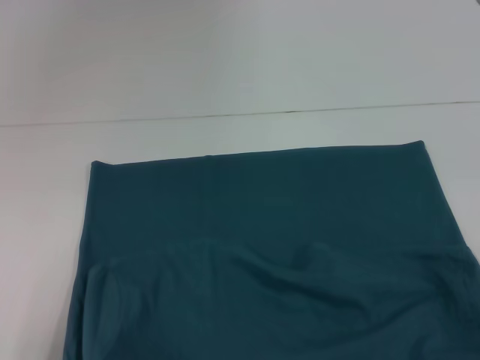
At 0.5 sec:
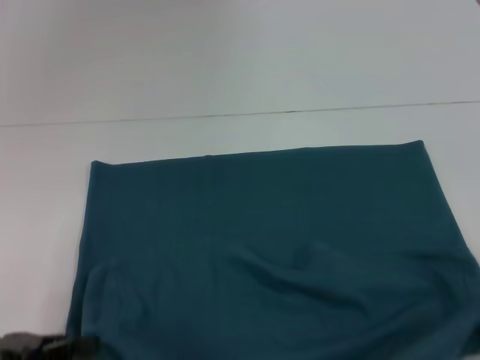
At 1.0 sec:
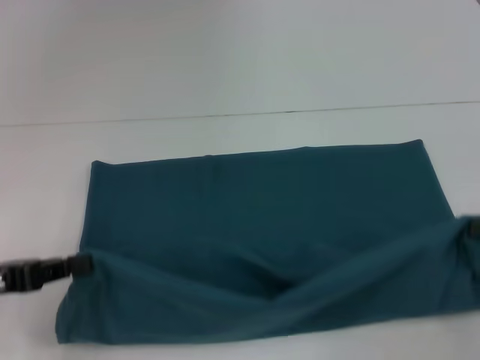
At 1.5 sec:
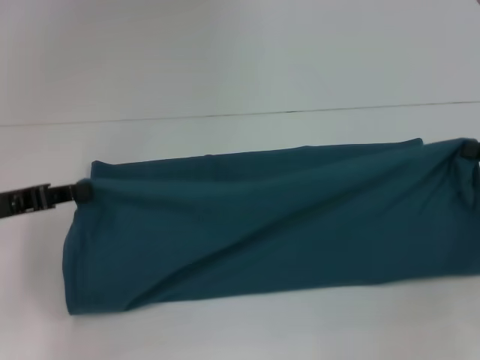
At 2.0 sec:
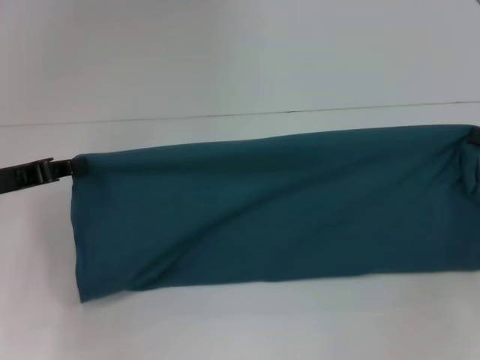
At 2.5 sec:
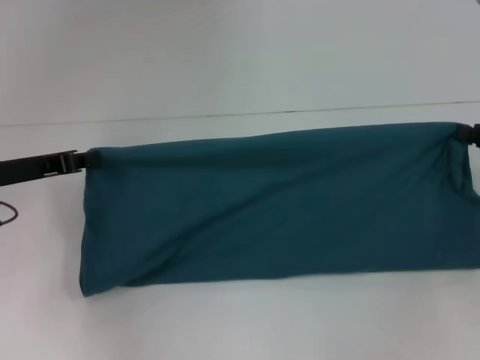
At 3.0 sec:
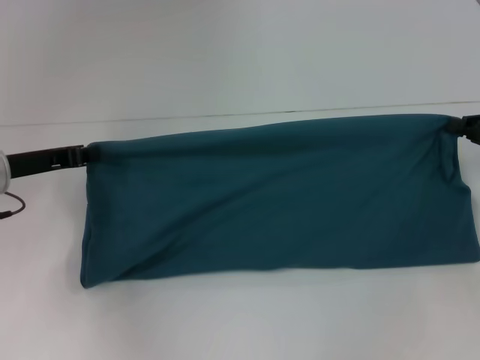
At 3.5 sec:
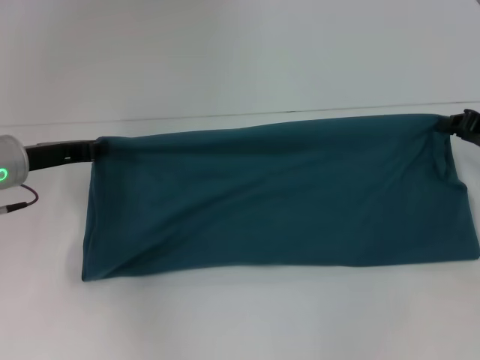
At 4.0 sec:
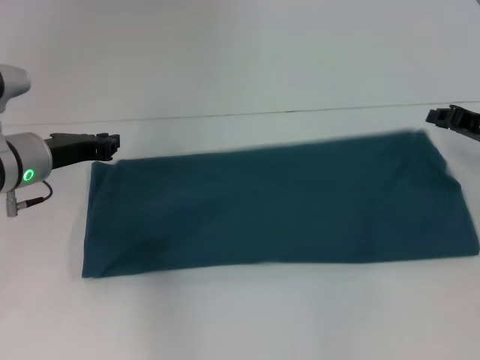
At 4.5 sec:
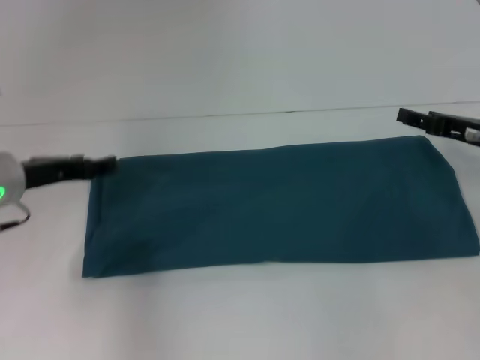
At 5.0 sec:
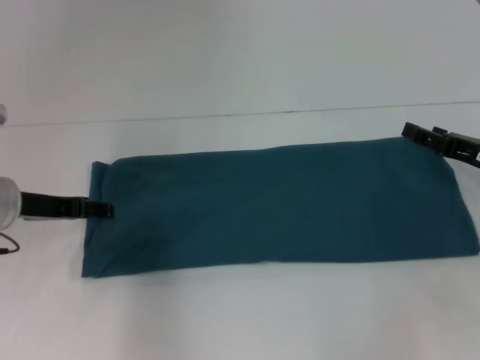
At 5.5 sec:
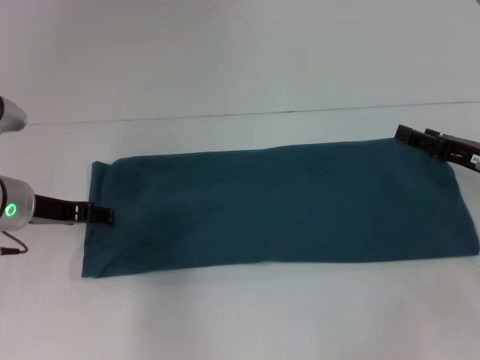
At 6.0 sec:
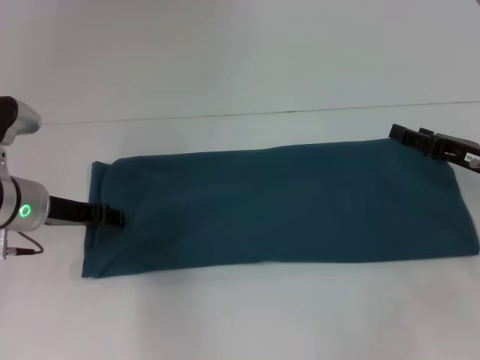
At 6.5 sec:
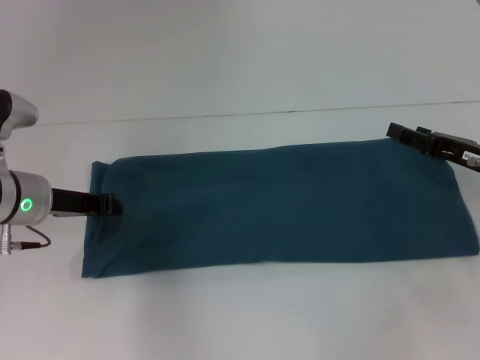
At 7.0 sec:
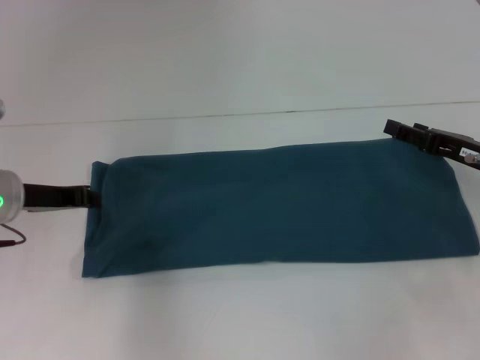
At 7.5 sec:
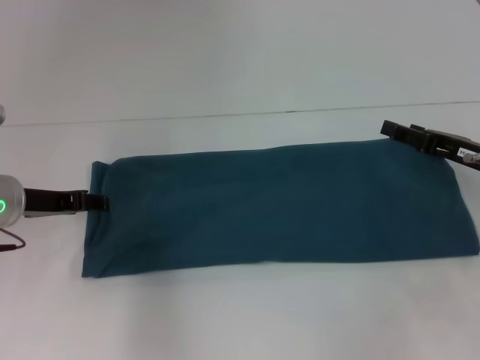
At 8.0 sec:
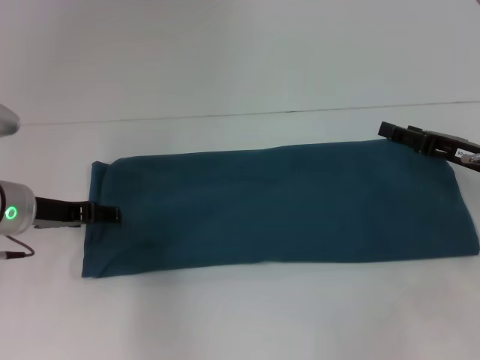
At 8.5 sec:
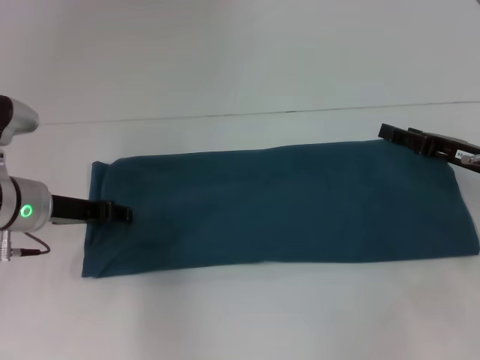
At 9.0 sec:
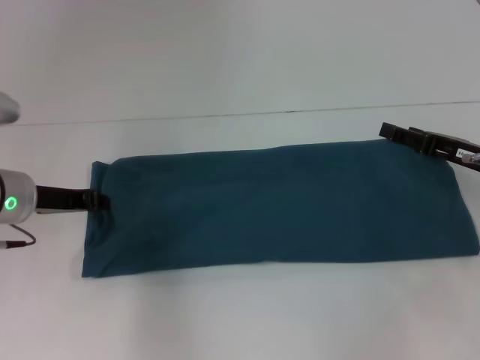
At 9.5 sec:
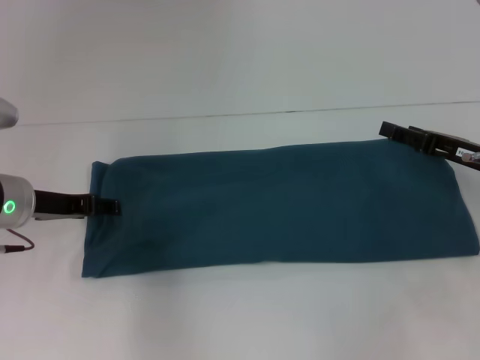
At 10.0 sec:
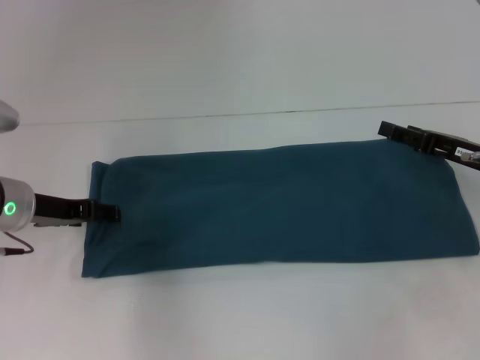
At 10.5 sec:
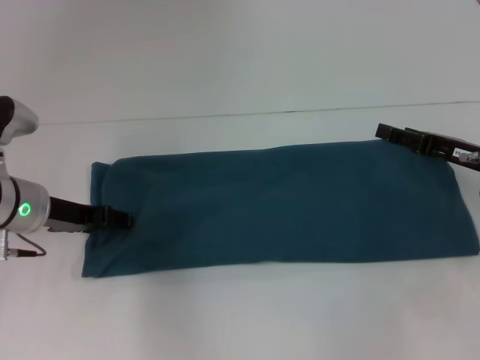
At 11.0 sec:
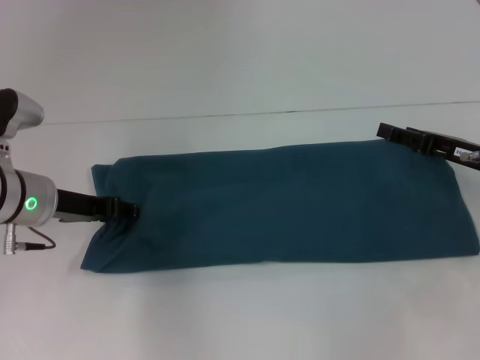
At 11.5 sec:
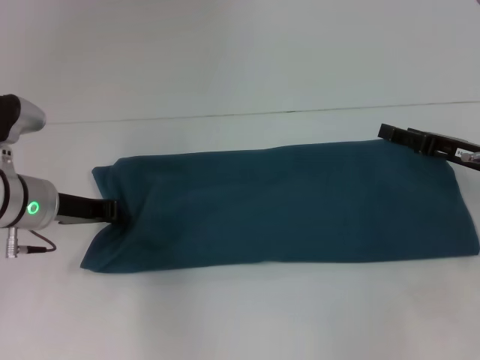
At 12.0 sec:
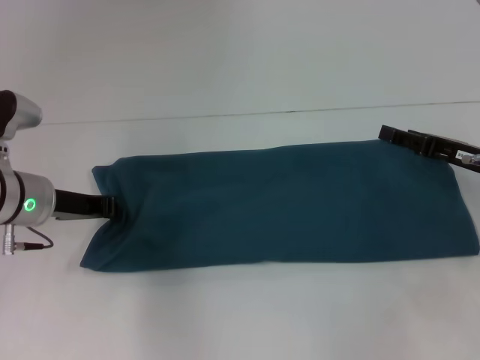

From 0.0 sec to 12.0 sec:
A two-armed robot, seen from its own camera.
Step, from 0.0 sec to 4.0 sec: Fold the clothes to the left.
Step, from 0.0 sec to 4.0 sec: Fold the clothes to the right.
From 0.0 sec to 2.0 sec: Both grippers move forward, approximately 20 cm.
From 2.0 sec to 4.0 sec: The left gripper is displaced to the right and forward by approximately 10 cm. The right gripper moves forward and to the left, roughly 10 cm.
From 4.0 sec to 6.0 sec: The right gripper changes place by approximately 5 cm, and opens its fingers; the left gripper opens its fingers.
From 6.0 sec to 8.0 sec: The left gripper closes, then opens again.
From 8.0 sec to 10.0 sec: The left gripper closes and opens again.
From 10.0 sec to 12.0 sec: The left gripper closes.

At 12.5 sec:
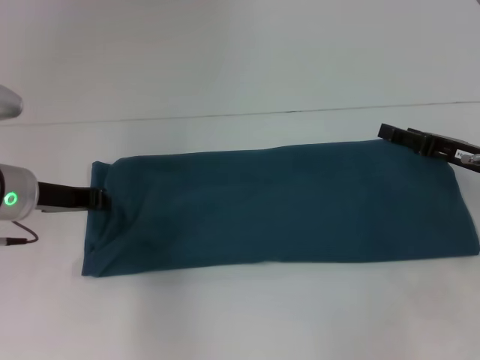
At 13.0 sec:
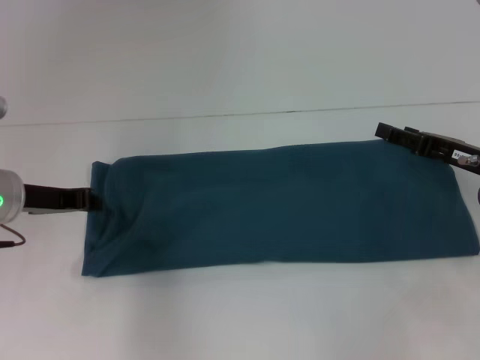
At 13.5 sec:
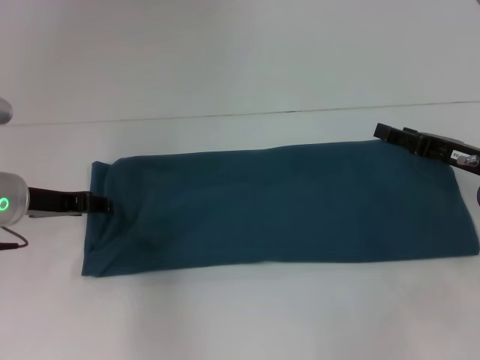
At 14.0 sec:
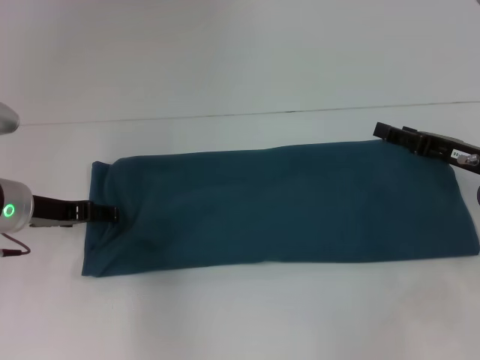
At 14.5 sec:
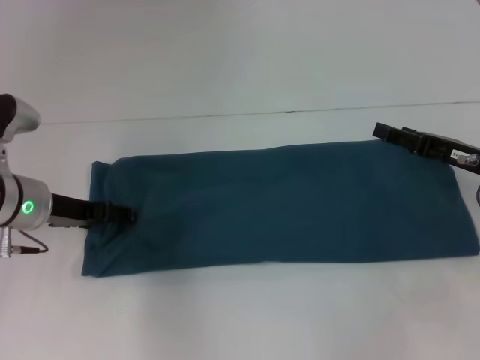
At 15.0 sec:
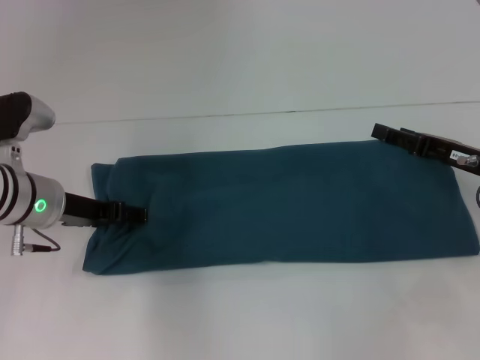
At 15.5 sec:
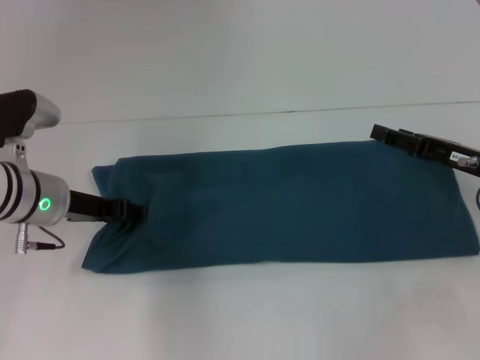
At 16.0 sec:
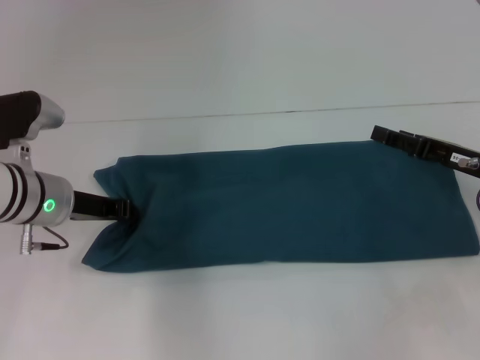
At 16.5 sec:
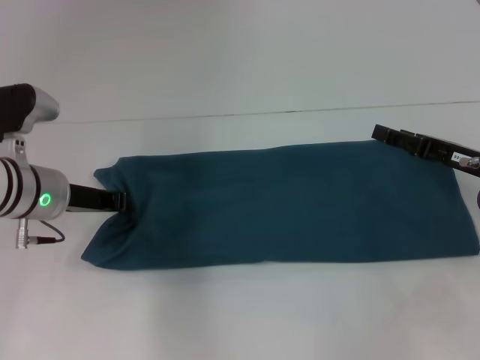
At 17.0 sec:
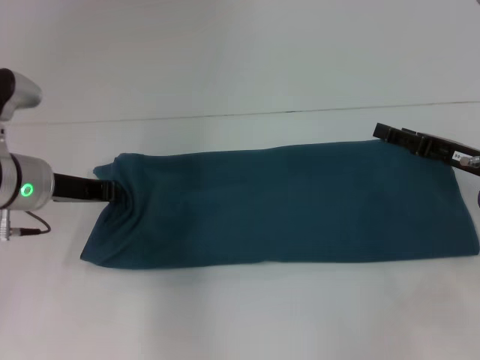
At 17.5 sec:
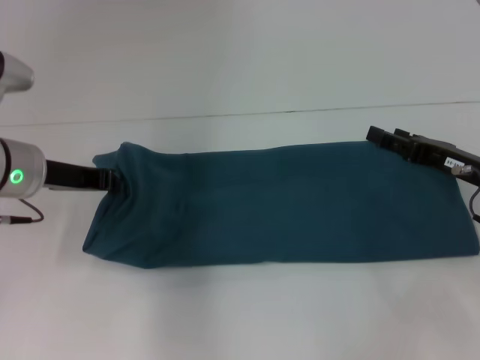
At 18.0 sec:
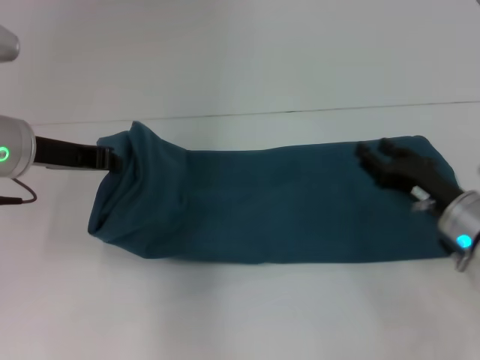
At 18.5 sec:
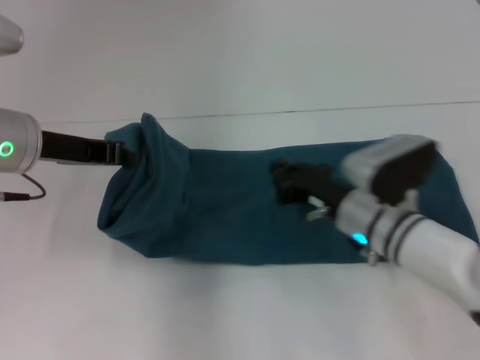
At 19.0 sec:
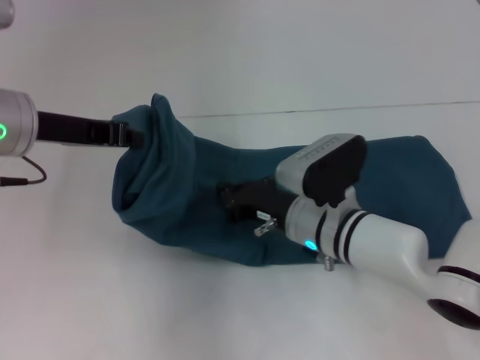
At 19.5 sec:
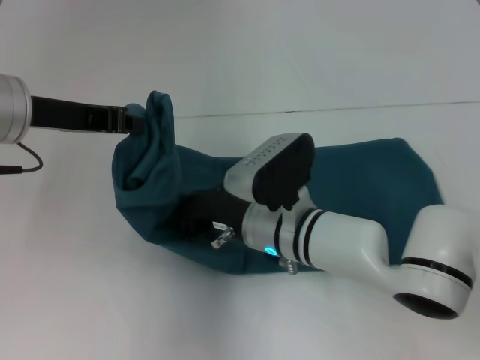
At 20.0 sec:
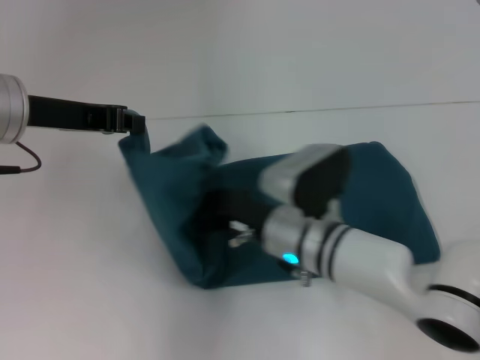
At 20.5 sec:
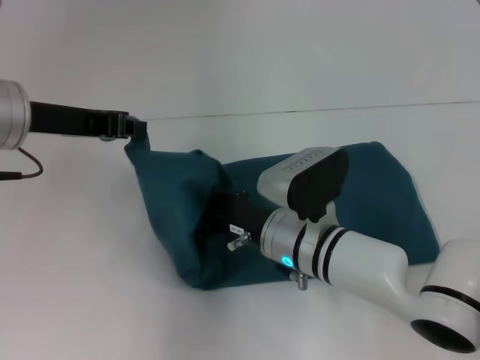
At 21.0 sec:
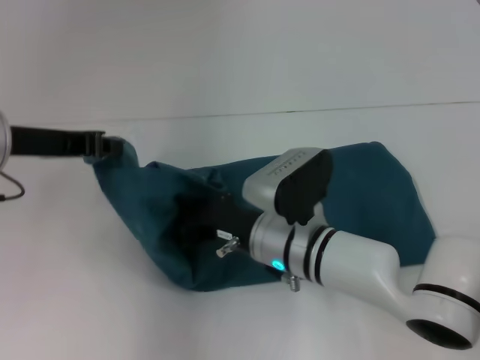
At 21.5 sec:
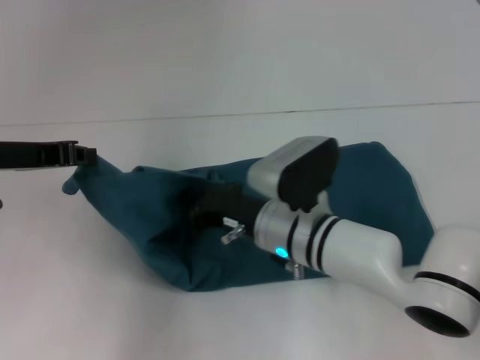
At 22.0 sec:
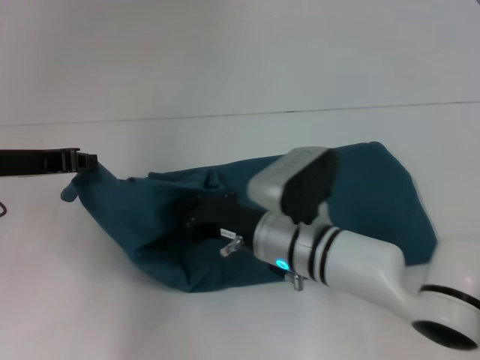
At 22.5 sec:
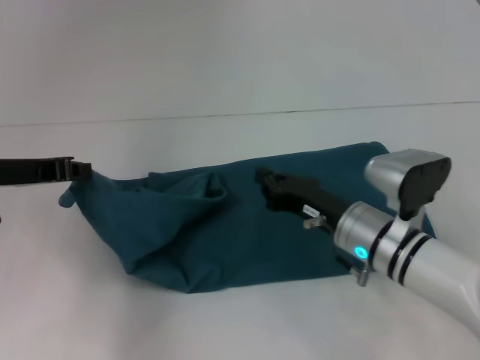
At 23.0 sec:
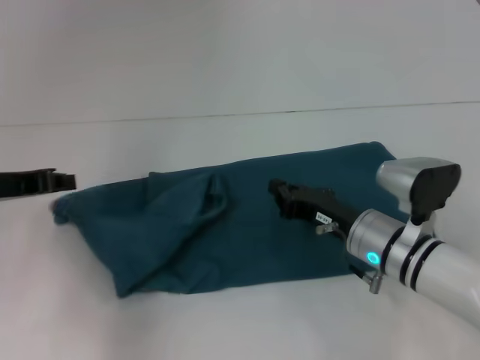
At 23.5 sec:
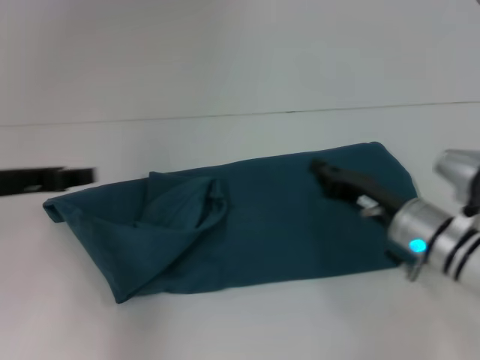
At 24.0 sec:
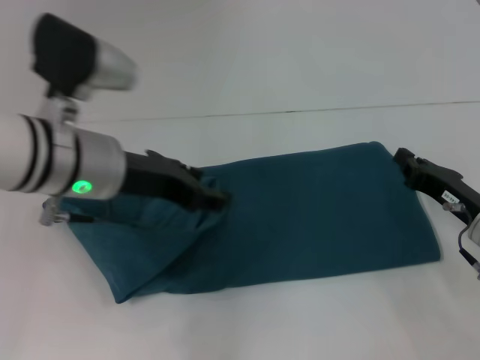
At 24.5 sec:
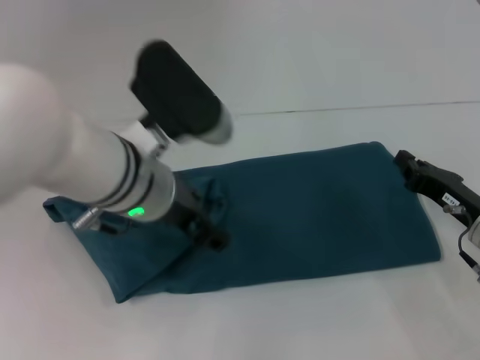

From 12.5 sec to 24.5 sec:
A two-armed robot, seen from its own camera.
From 12.5 sec to 14.5 sec: The left gripper opens.
From 14.5 sec to 16.5 sec: The left gripper closes up.
From 16.5 sec to 18.5 sec: The right gripper heads to the left, covering some 15 cm, and closes; the left gripper is displaced upward by about 10 cm.
From 18.5 sec to 20.5 sec: The right gripper goes roughly 10 cm to the left.
From 20.5 sec to 22.5 sec: The right gripper is displaced to the right by some 10 cm. Meanwhile the left gripper goes roughly 10 cm downward and to the left.
From 22.5 sec to 24.5 sec: The grippers both shift to the right by approximately 15 cm. The left gripper opens up.

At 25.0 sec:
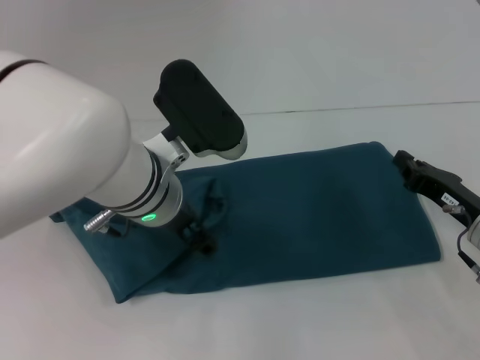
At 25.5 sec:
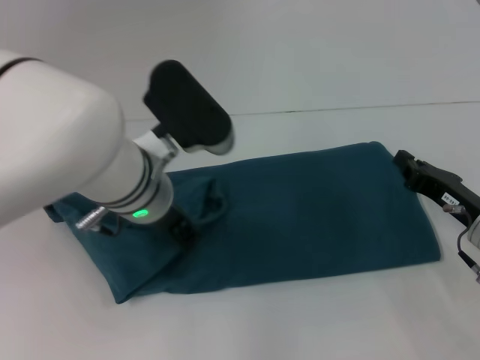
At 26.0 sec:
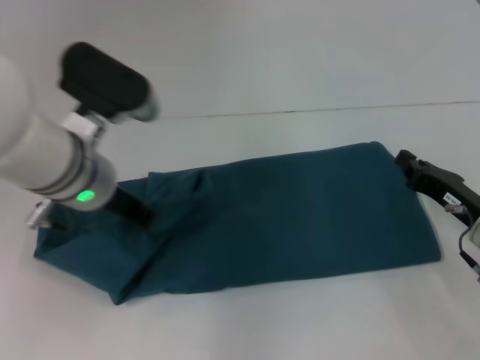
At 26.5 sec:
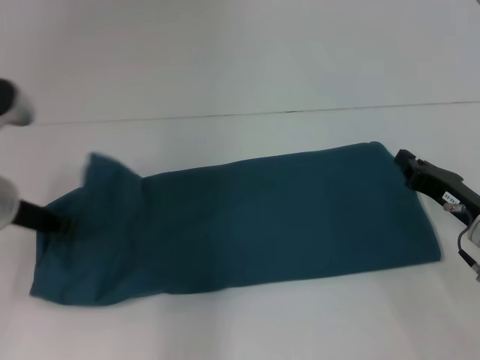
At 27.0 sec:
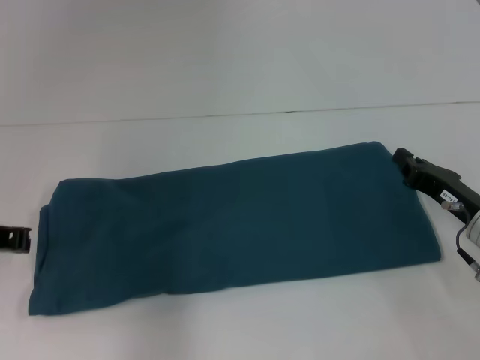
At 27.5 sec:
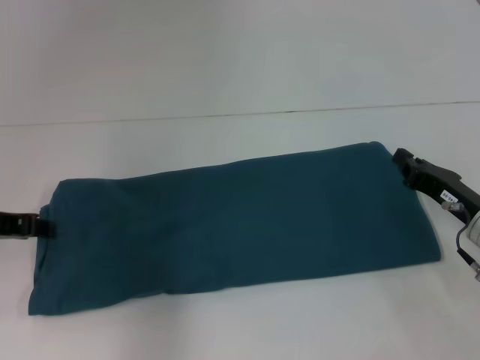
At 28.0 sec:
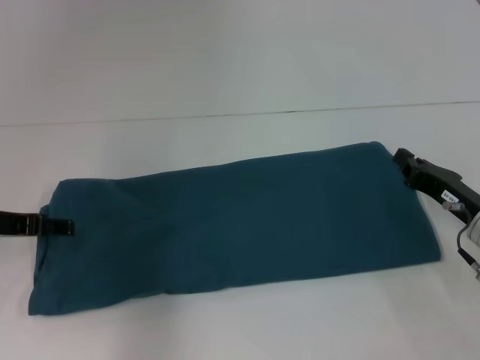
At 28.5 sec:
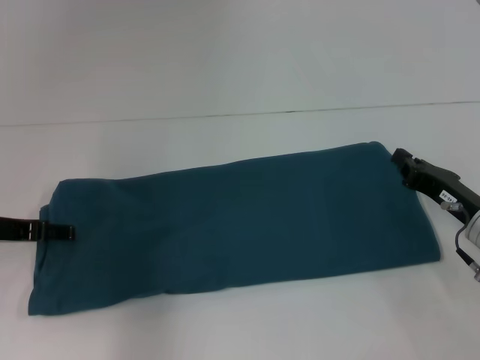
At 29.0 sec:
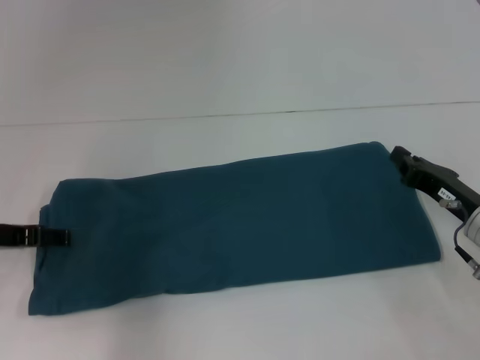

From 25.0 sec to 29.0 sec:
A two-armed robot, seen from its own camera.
From 25.0 sec to 27.0 sec: The left gripper heads to the left, covering some 20 cm, and closes up.
